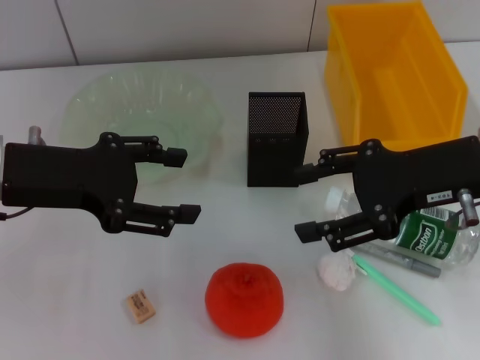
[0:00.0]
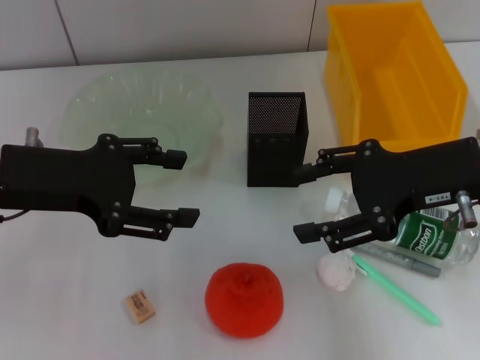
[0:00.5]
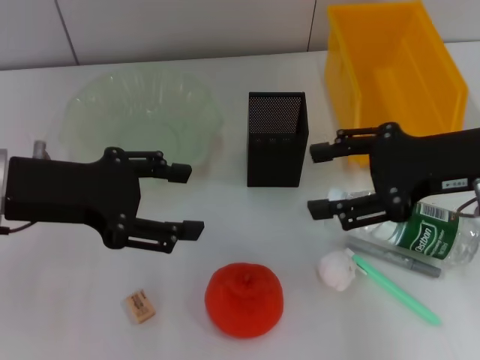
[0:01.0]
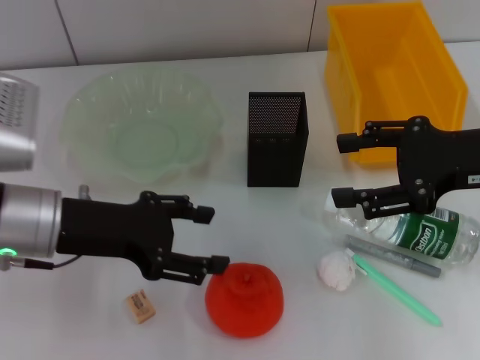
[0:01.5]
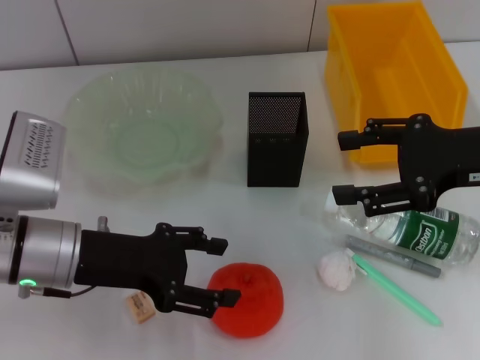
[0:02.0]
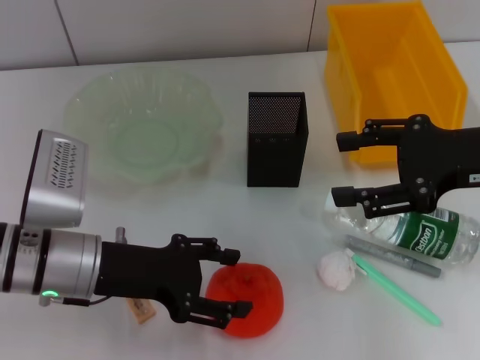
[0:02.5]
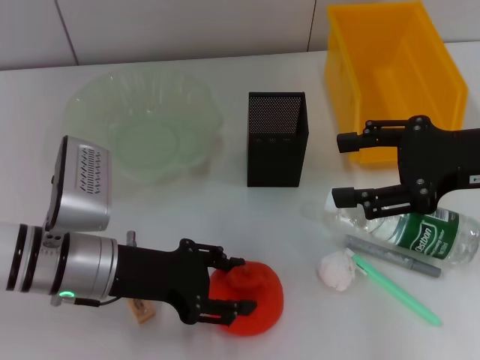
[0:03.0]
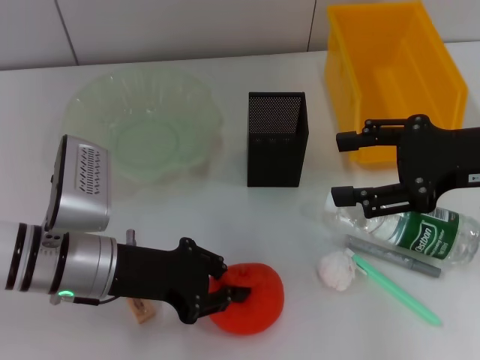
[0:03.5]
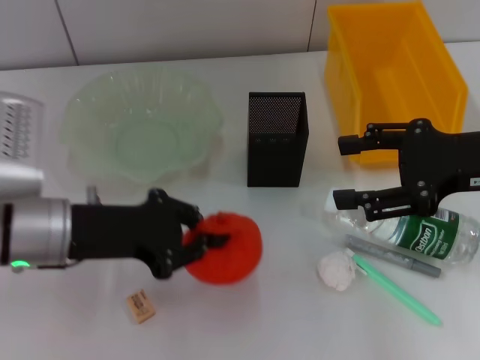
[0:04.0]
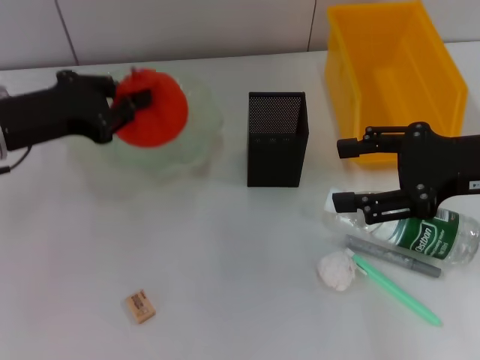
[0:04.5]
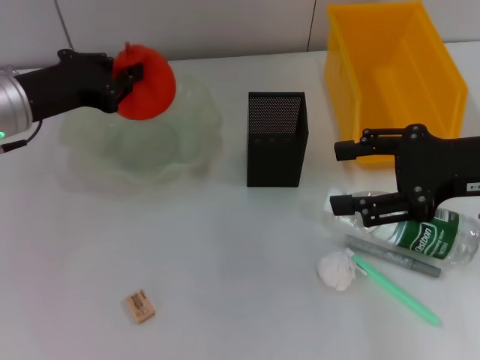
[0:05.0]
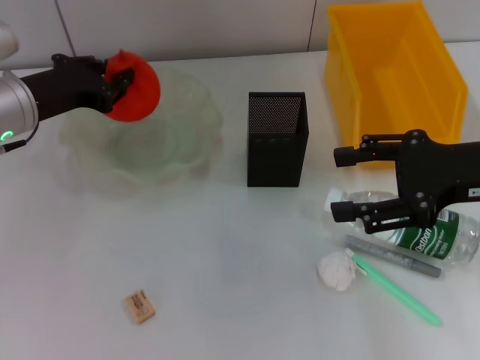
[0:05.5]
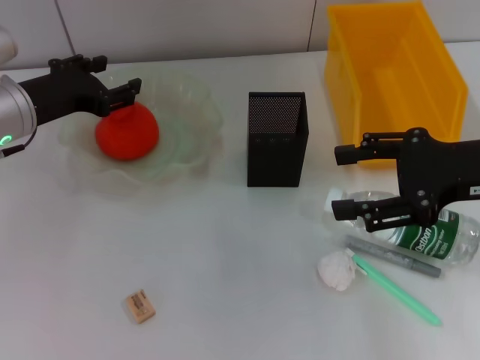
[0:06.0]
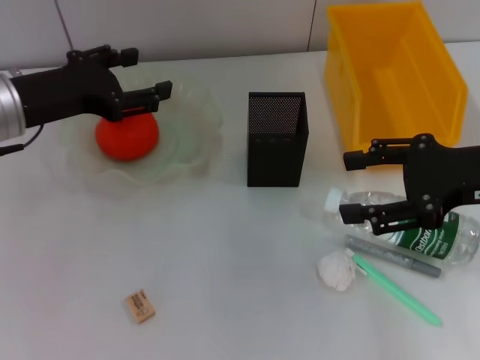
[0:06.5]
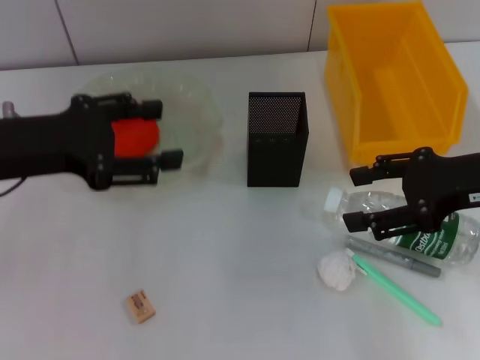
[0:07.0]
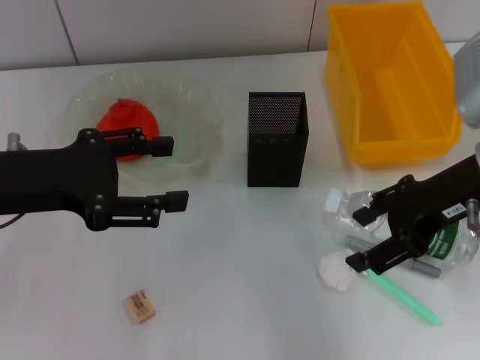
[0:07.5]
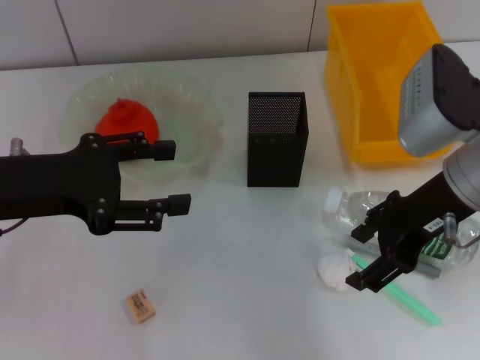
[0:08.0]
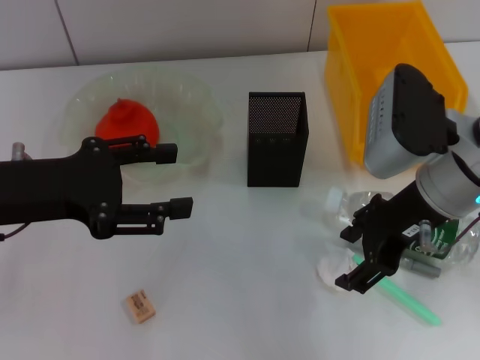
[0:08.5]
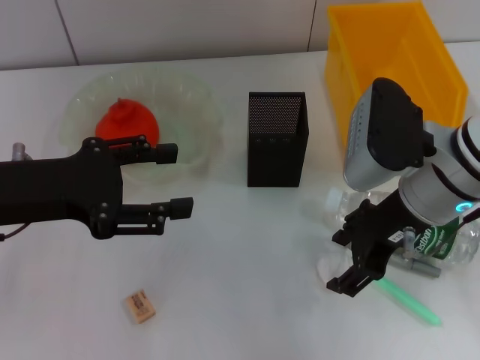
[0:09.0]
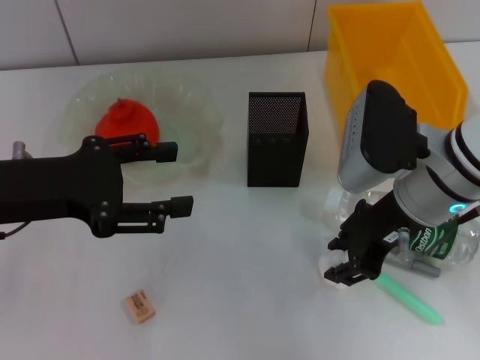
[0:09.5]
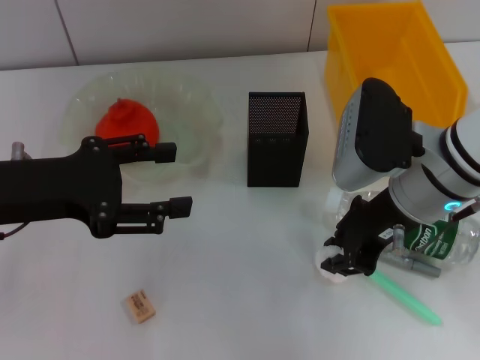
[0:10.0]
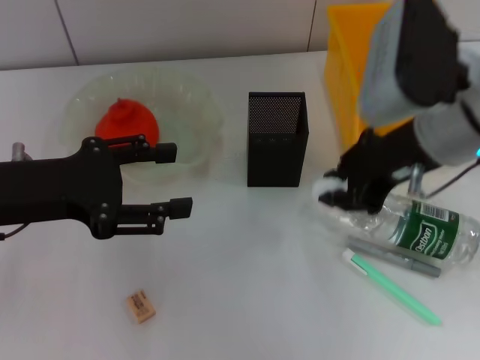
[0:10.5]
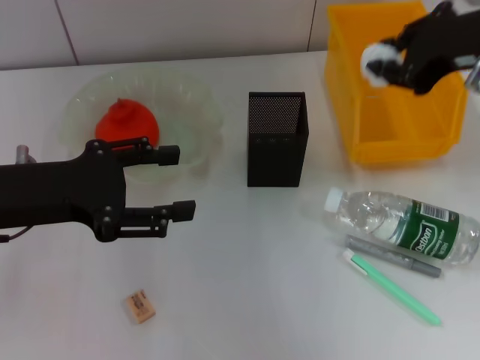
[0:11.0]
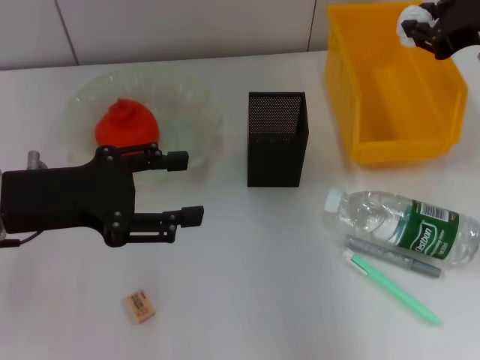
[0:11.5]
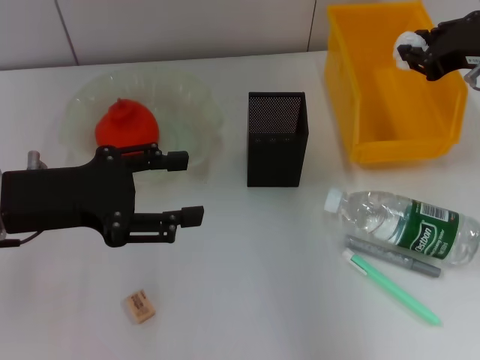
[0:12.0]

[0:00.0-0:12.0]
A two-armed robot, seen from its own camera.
Step, 0.0 to 3.5 s: Grab the orange with the left hand.
Step, 4.0 to 6.0 s: Place the orange into the fruit bowl with the left hand.
Step, 6.5 to 9.5 s: Grab the paper ball with the right hand.
0.0 to 2.0 s: The left gripper moves downward, approximately 10 cm.
2.0 to 4.0 s: The left gripper closes its fingers.
4.0 to 6.0 s: The left gripper moves forward, roughly 10 cm, and opens.
6.0 to 8.0 s: The left gripper shifts approximately 10 cm backward, and opens up. Meanwhile the right gripper is displaced to the left by roughly 5 cm.
8.0 to 10.0 s: The right gripper closes its fingers.
10.0 to 12.0 s: The right gripper is displaced to the right, forward and upward by about 15 cm.

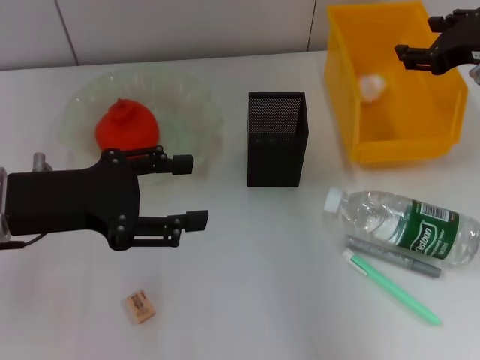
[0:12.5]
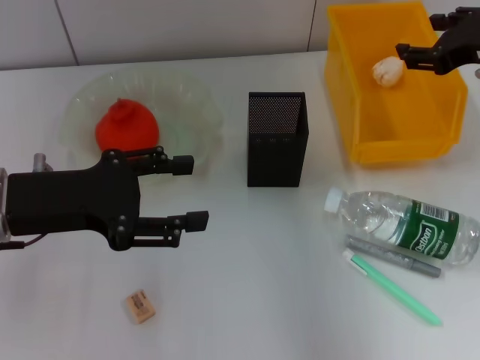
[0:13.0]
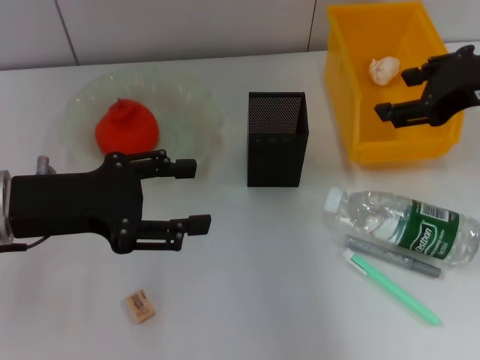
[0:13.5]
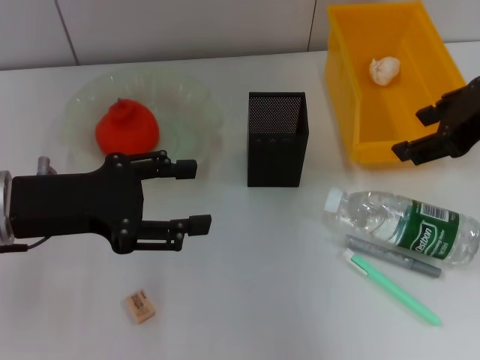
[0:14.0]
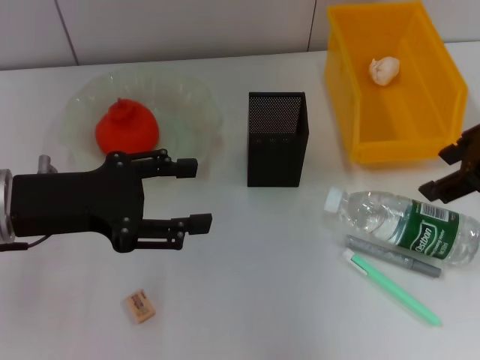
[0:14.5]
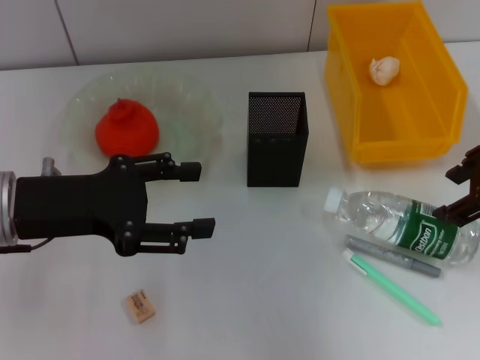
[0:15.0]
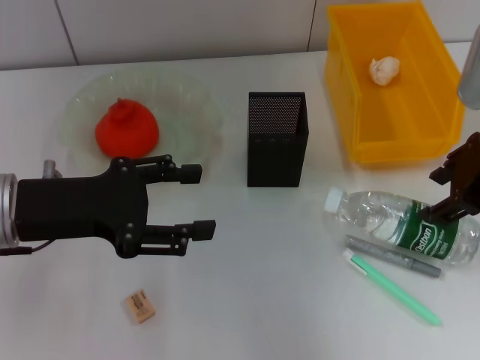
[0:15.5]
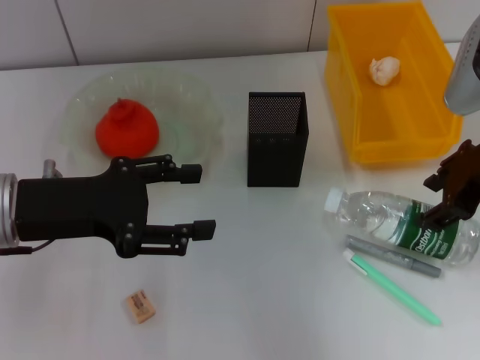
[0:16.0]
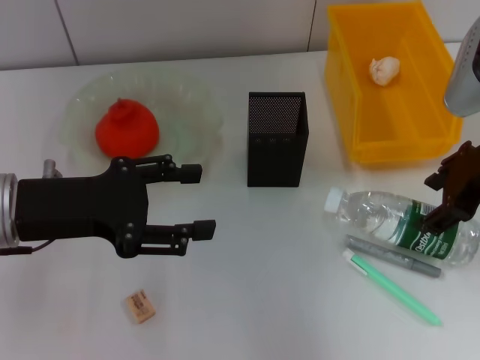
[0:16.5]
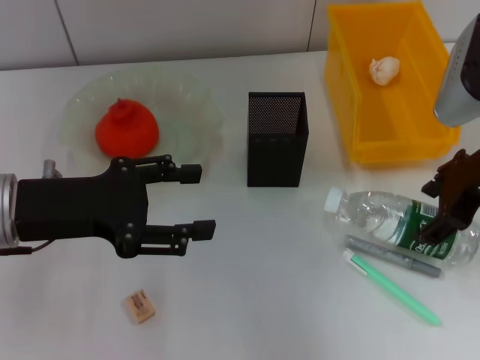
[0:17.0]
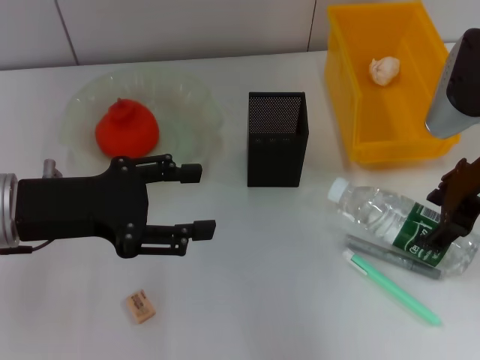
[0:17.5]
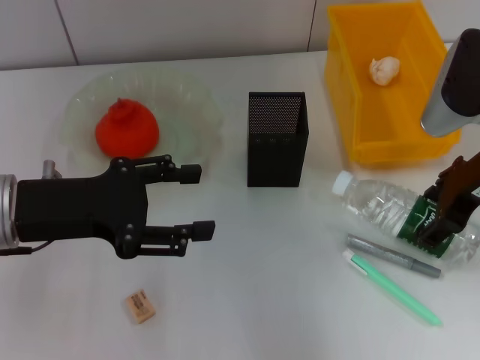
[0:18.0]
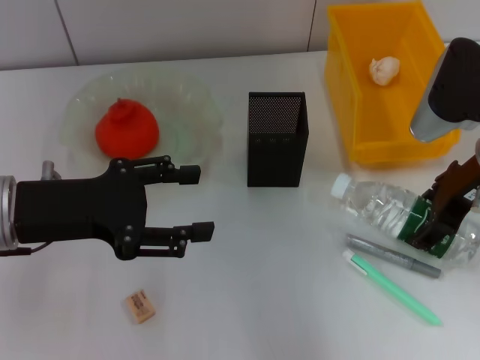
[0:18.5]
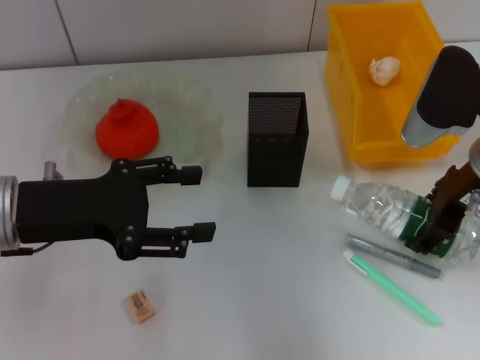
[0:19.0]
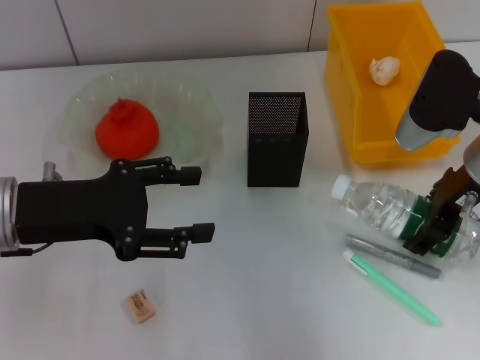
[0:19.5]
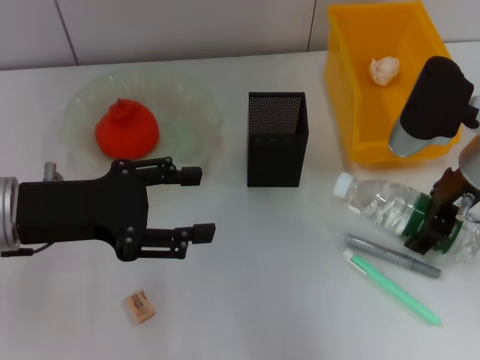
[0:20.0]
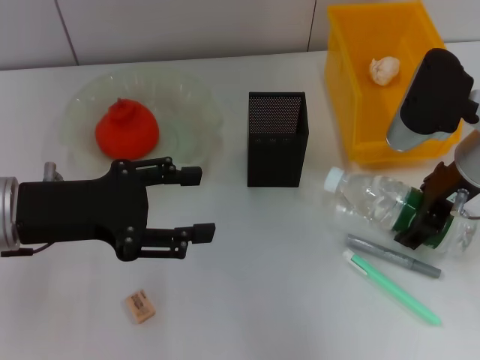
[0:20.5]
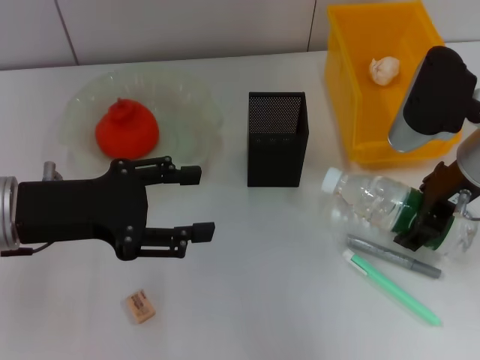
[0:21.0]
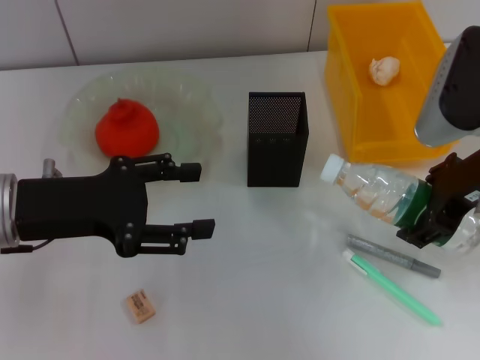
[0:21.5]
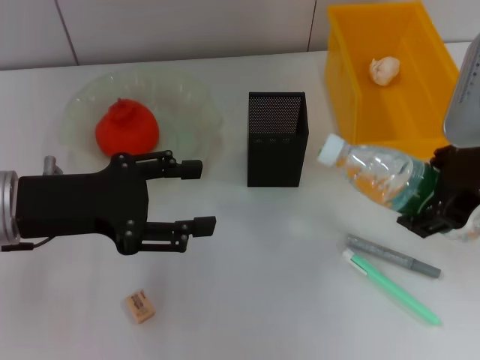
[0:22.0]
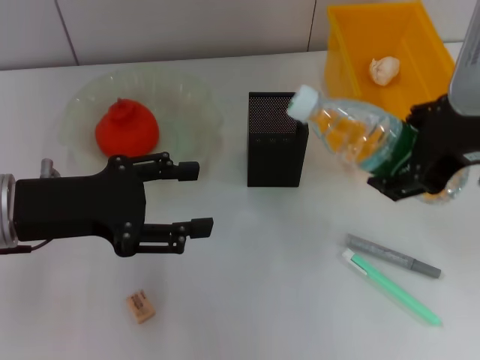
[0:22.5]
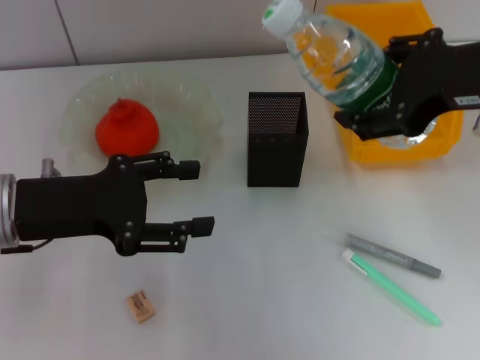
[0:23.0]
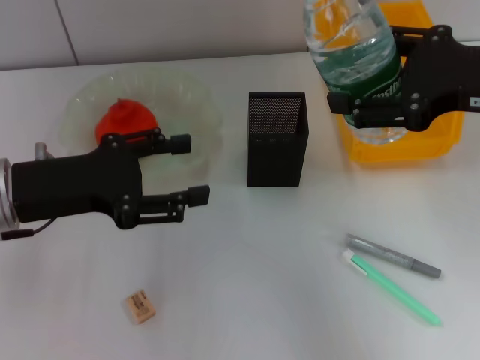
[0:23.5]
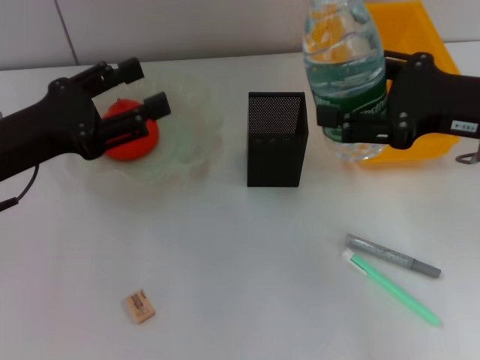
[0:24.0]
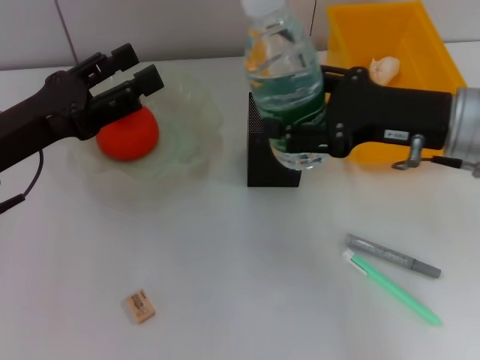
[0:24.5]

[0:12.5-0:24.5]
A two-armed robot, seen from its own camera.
Step, 13.0 to 20.5 s: Grab the water bottle with the right hand.
12.5 to 14.5 s: The right gripper is displaced backward by roughly 5 cm.
14.5 to 16.5 s: The right gripper shifts by approximately 5 cm.
16.5 to 20.5 s: The grippers make only small movements.
20.5 to 22.5 s: The right gripper is displaced upward and backward by some 10 cm.
22.5 to 24.5 s: The right gripper heads downward, covering approximately 10 cm.

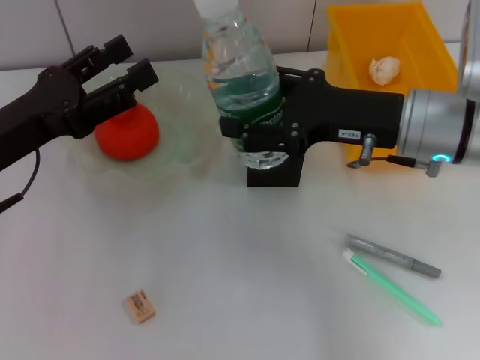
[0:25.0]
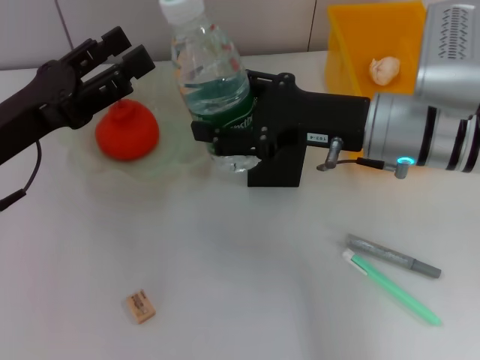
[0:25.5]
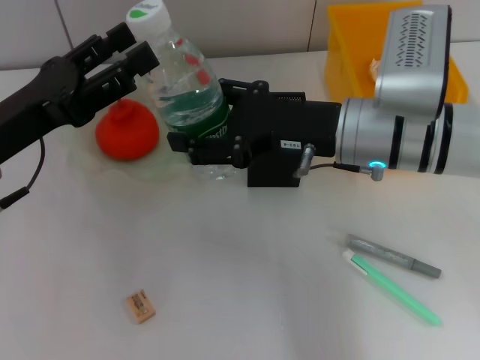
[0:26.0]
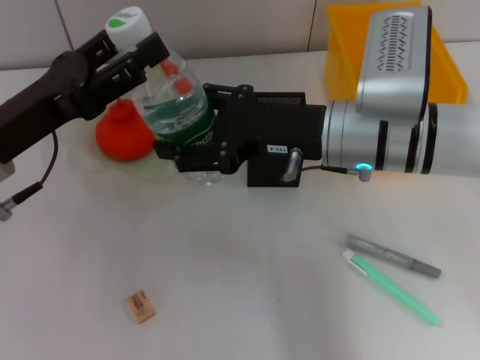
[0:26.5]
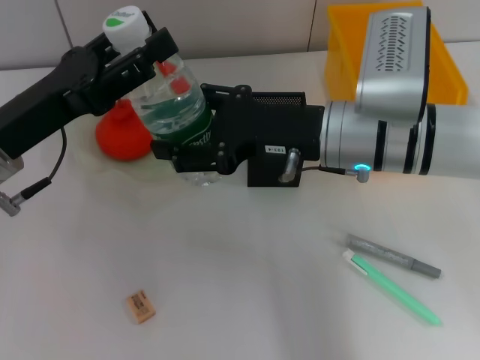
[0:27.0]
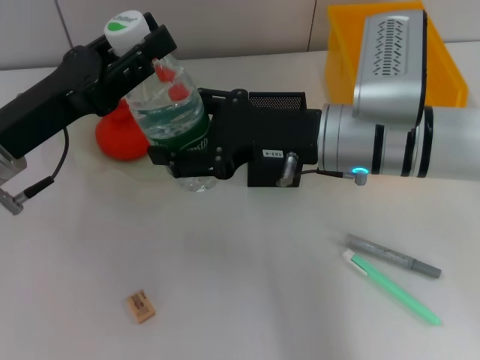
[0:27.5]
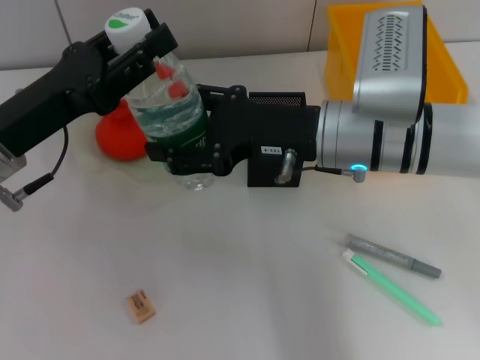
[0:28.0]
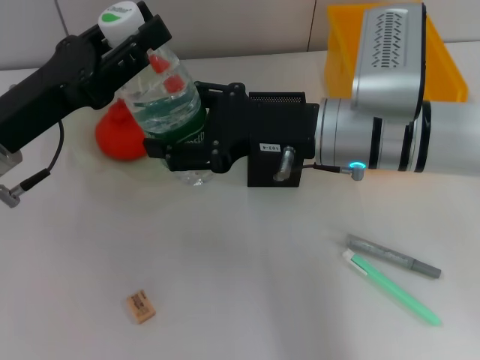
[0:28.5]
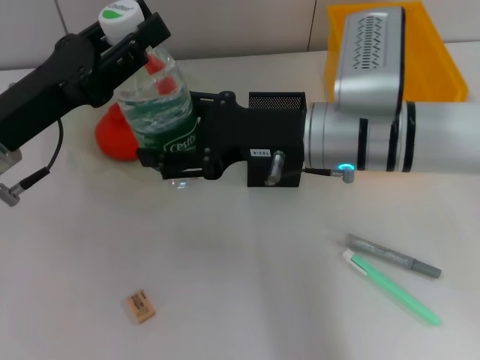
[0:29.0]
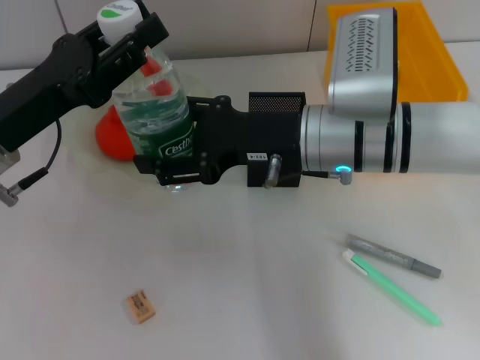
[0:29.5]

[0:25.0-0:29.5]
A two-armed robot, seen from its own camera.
25.0 to 27.0 s: The right gripper goes approximately 5 cm to the left.
27.0 to 29.5 s: The grippers move only a little.
